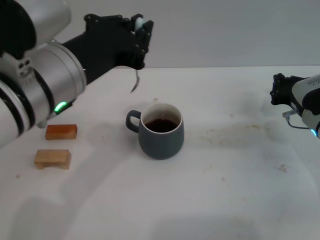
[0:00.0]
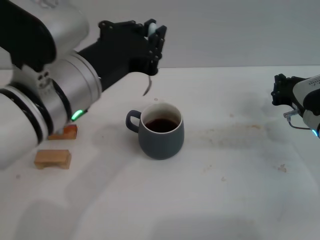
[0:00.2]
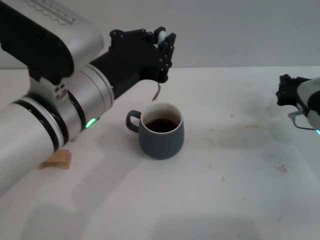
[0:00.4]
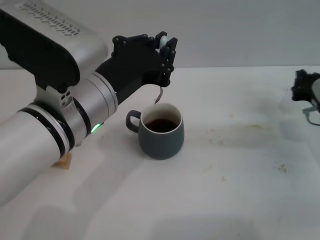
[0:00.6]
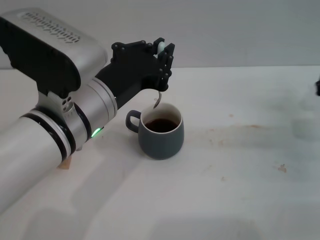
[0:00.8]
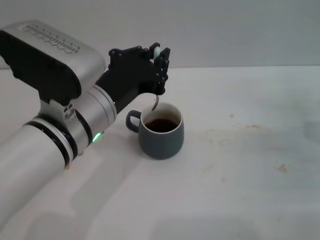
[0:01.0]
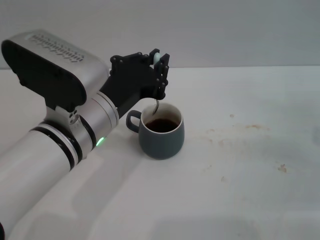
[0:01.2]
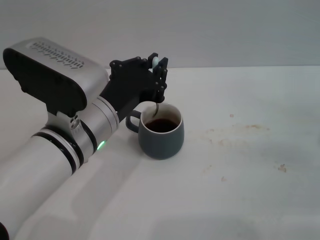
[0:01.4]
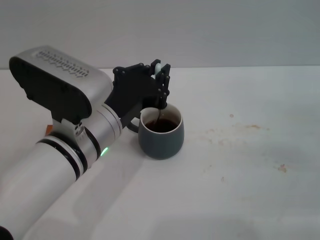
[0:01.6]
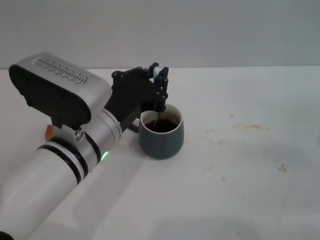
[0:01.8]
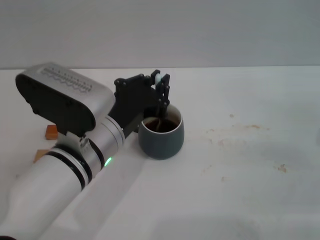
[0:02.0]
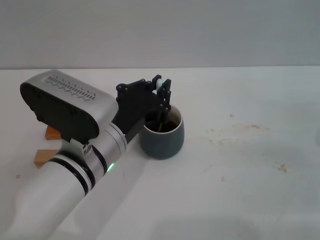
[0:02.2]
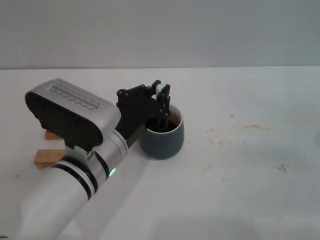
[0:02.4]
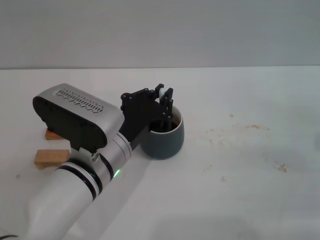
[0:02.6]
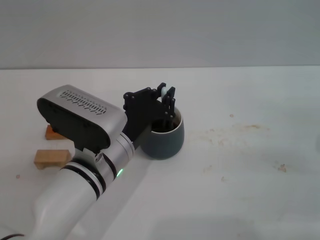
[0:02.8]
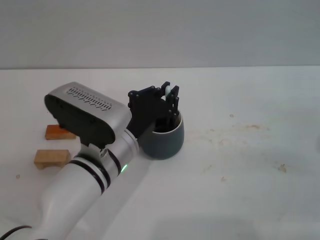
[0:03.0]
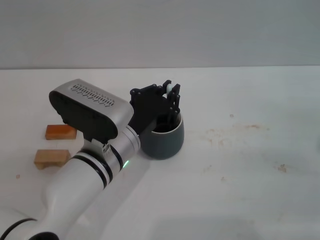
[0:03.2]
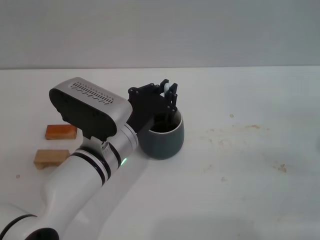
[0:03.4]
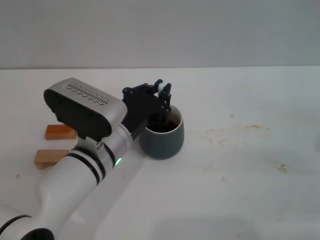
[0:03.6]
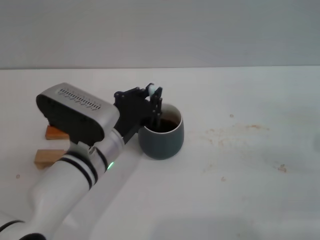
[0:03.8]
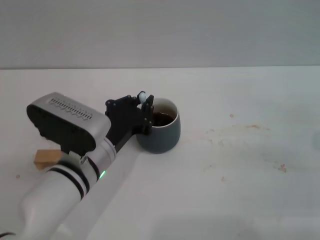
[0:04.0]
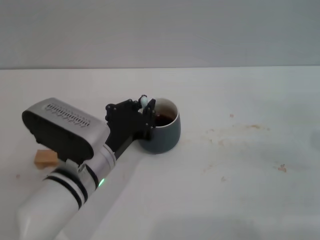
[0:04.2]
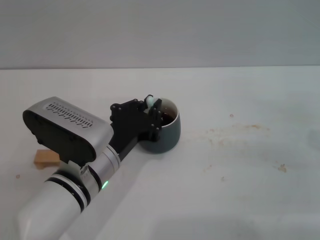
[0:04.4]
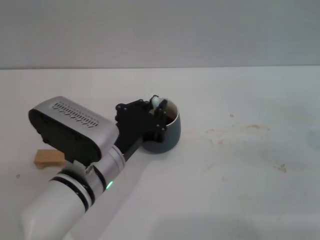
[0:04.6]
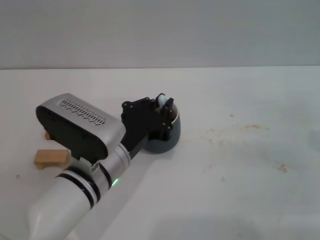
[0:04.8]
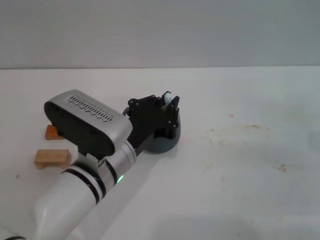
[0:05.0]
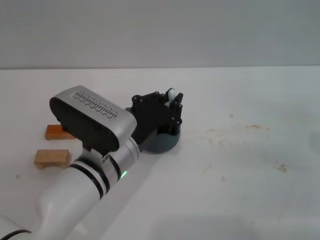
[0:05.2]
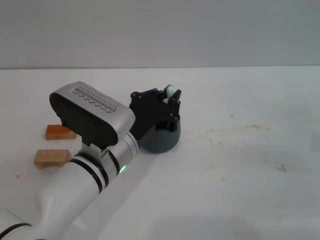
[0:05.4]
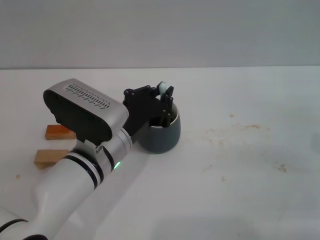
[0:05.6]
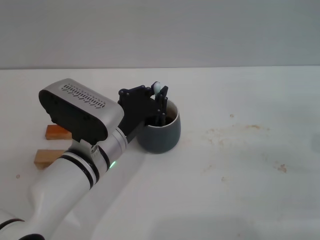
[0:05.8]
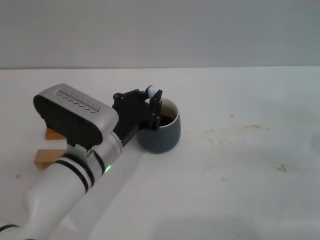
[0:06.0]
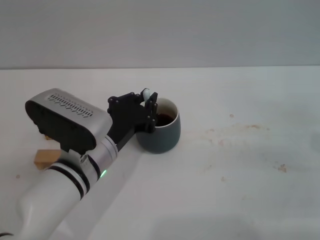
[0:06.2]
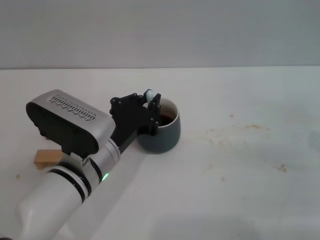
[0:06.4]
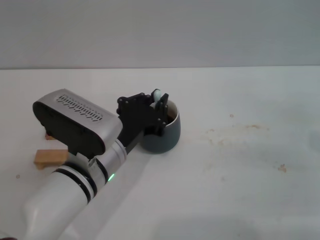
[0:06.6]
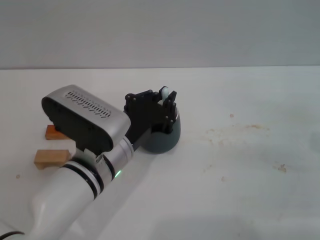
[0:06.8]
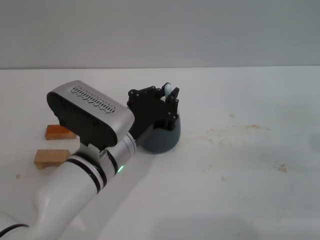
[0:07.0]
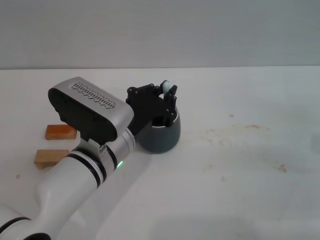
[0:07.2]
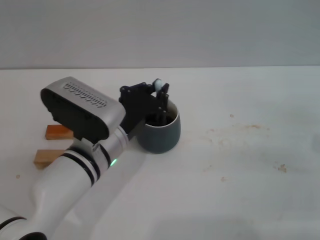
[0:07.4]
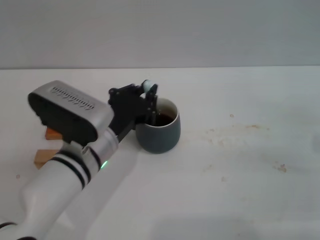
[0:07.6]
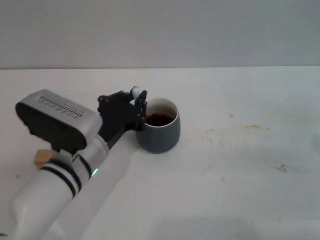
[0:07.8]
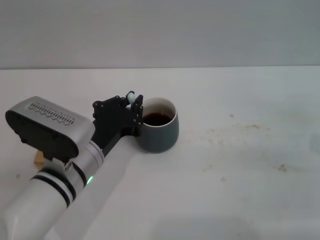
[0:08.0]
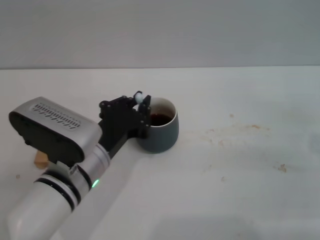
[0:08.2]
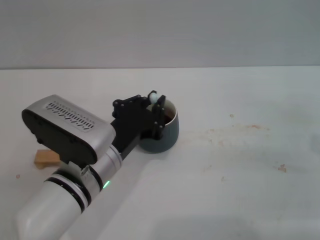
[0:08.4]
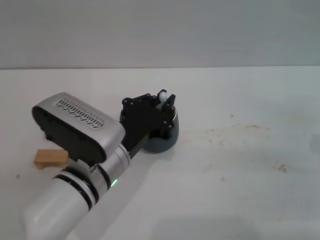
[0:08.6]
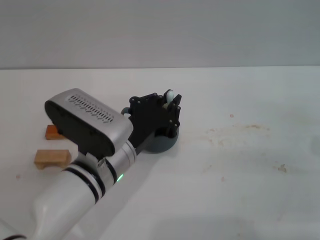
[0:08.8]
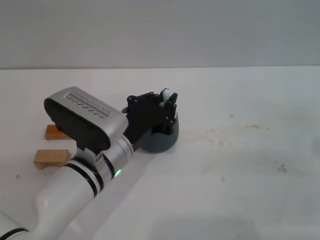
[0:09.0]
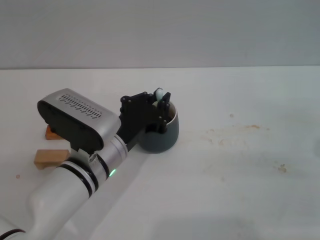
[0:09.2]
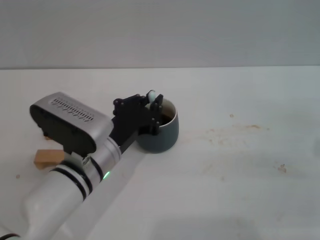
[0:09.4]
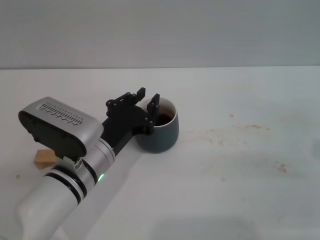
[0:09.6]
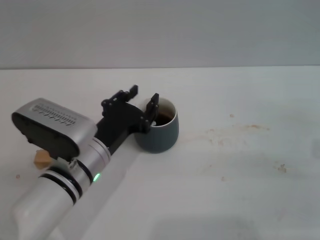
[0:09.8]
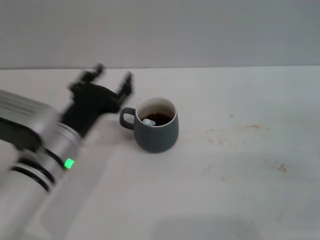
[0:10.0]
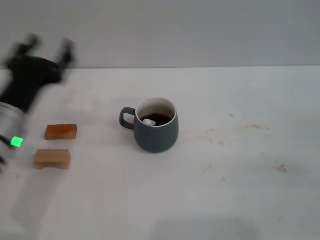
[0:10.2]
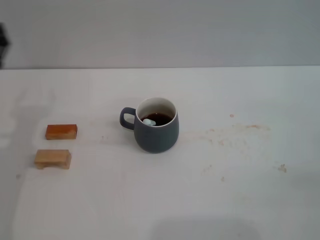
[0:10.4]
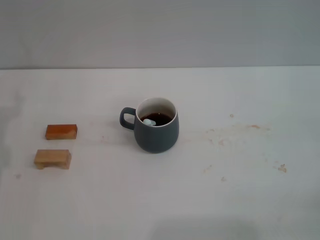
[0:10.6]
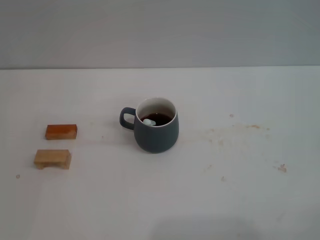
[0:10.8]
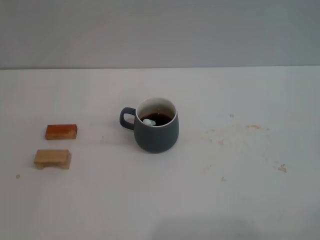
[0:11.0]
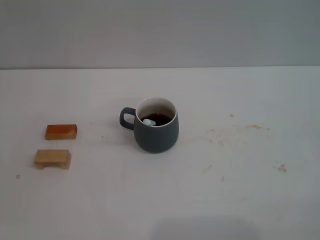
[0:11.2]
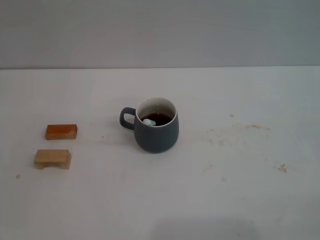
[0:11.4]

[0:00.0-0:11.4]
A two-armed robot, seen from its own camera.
Task of the whole recording: Move the grey cup to the center, lift the blue spoon, stir it three times in the cup, and put the spoon into the cup.
Step, 0:00.0 to 0:10.0: Stir the coffee in the cup with the left gripper.
0:00.0 to 0:01.4: The right gripper is displaced to the right and backward by about 10 cm. The left gripper goes about 10 cm downward.
0:01.4 to 0:02.8: The left gripper moves downward, roughly 5 cm.
0:02.8 to 0:08.6: The grippers stay close to where they were, moving slightly.
0:08.6 to 0:10.0: The left gripper shifts by roughly 5 cm, and opens its fingers.
0:10.0 to 0:11.4: The left gripper is displaced to the left by about 25 cm. The right gripper heads to the right and backward, covering roughly 15 cm, and opens.
